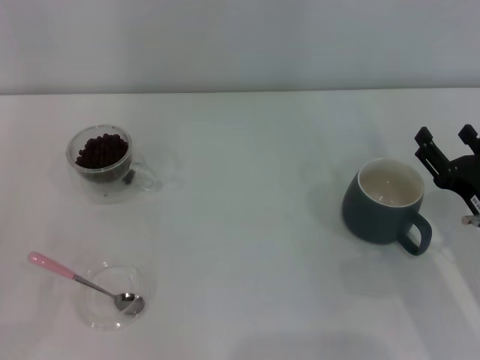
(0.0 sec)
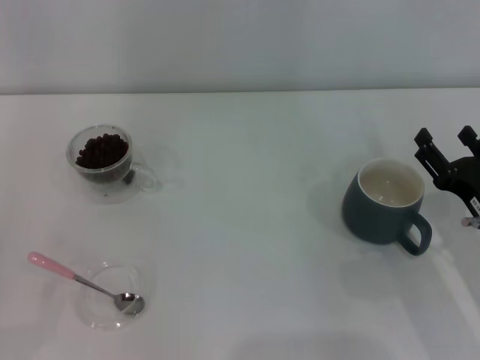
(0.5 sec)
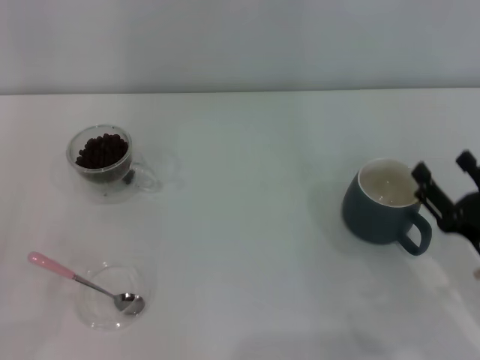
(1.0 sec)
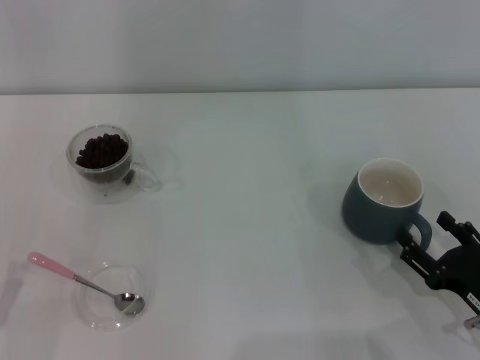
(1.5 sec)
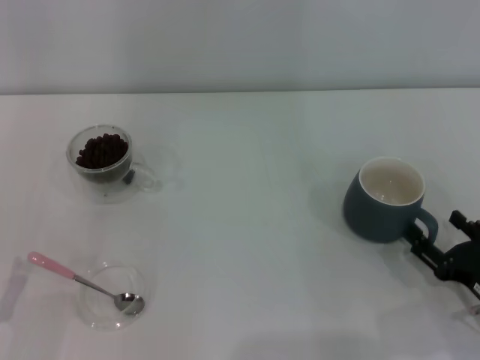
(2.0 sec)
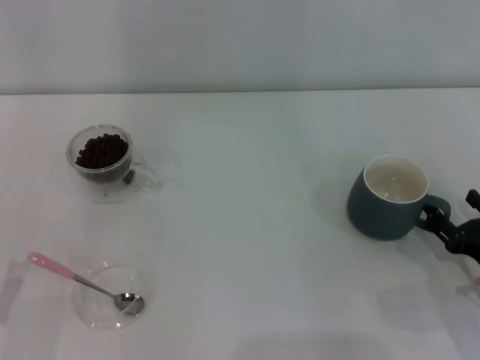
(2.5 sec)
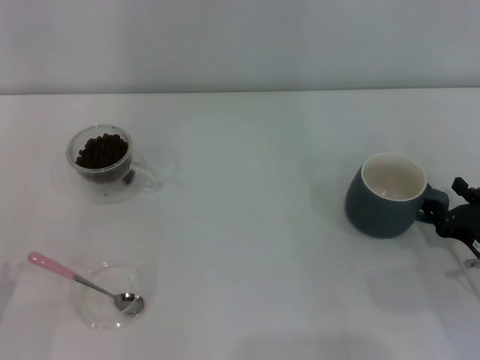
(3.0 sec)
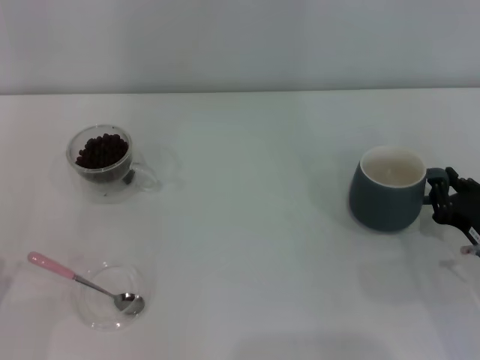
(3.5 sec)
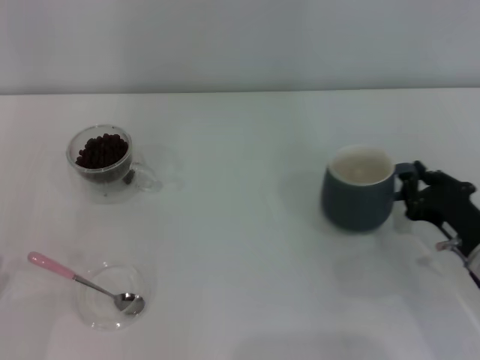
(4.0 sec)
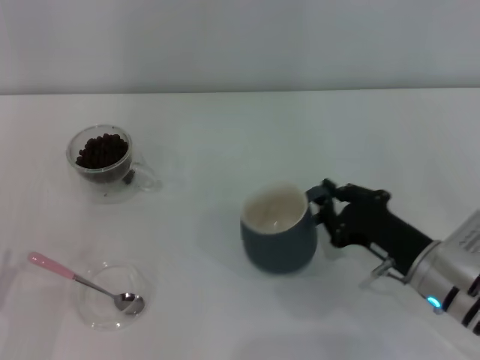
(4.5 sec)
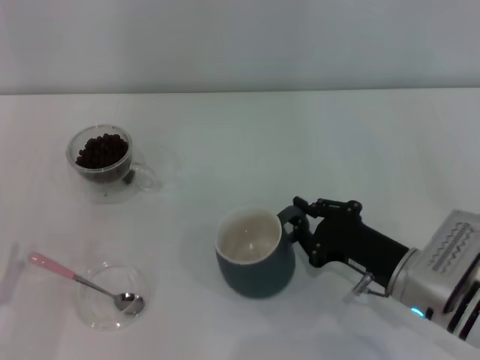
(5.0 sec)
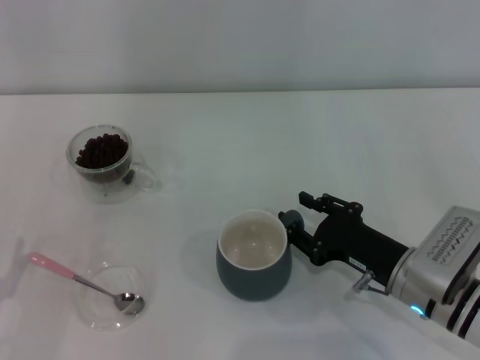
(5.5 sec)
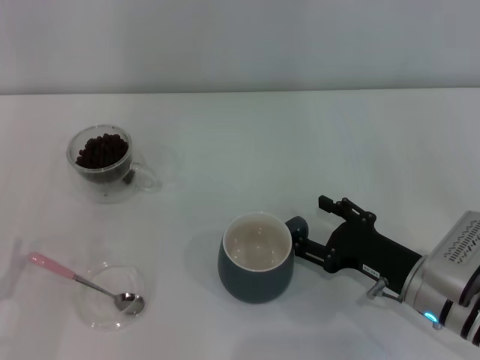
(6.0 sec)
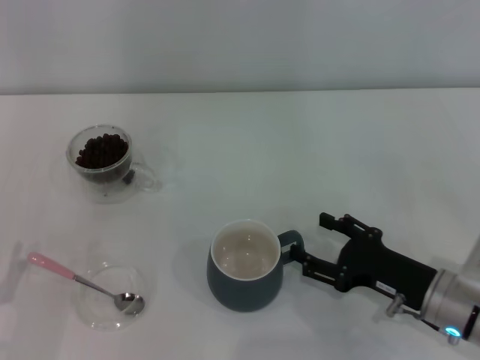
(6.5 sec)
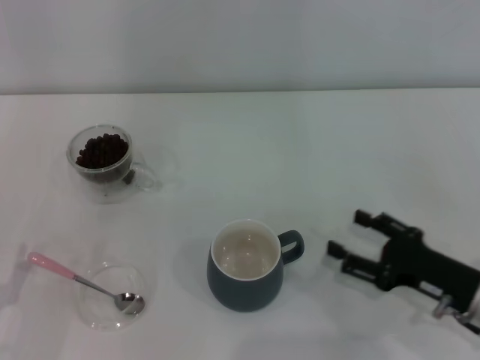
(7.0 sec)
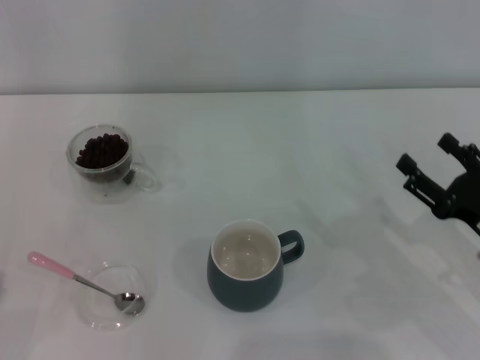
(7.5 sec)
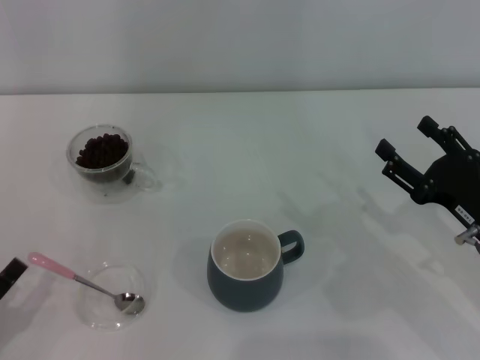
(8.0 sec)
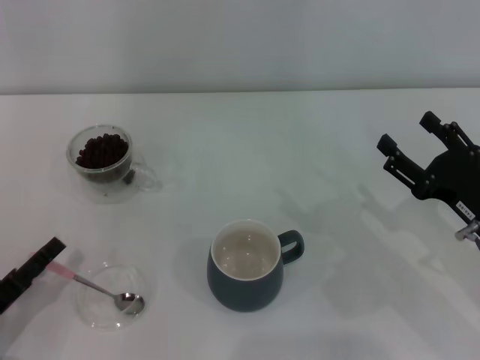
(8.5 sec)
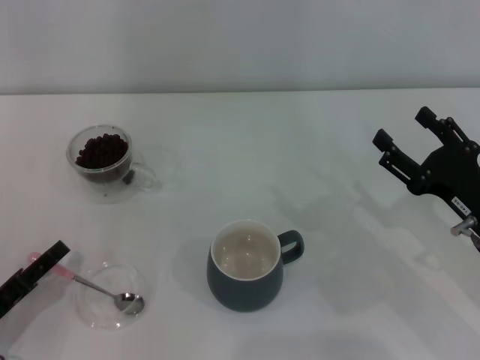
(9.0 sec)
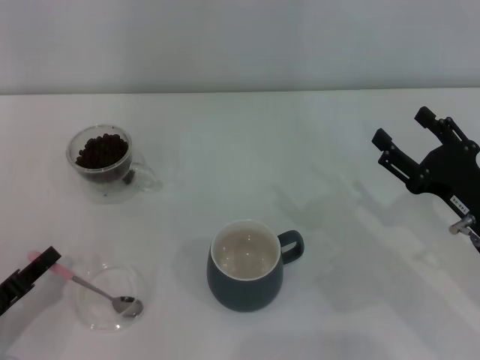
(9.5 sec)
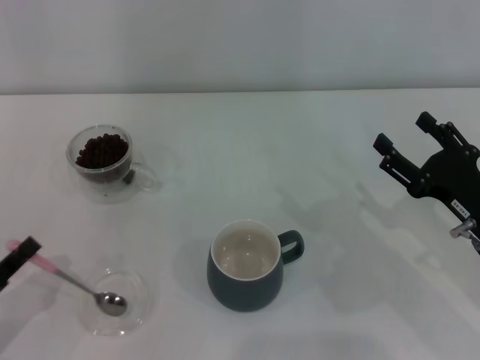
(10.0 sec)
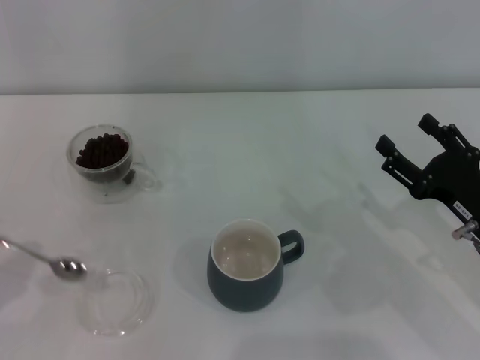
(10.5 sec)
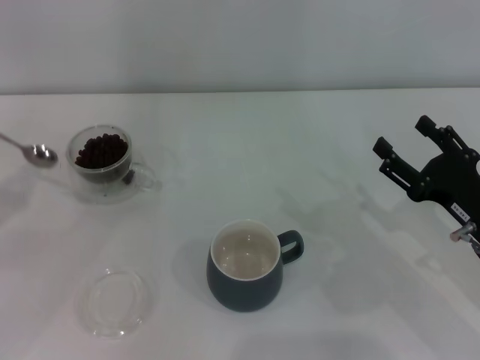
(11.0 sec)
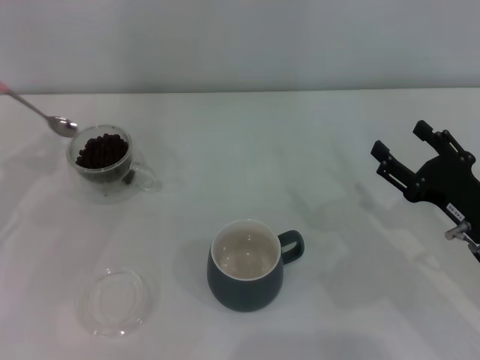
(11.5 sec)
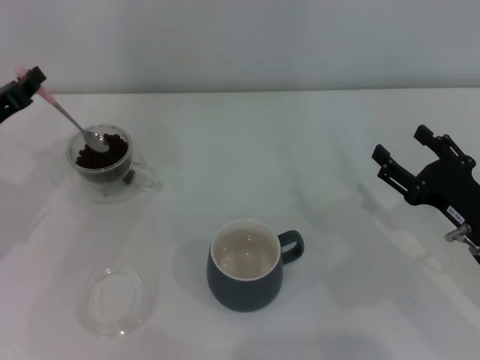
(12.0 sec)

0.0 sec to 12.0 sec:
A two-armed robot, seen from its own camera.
Task of the whole recording: Use a pink spoon to take out the coffee beans from the glass and pour them into the gray cup.
Step, 0.0 sec to 6.5 sec: Move the cup to the center of view with the left gripper.
Step, 7.0 sec to 10.0 sec: Pick up the spoon with the right gripper.
0.0 sec to 2.0 sec: The right gripper shifts roughly 5 cm backward.
2.0 sec to 4.0 sec: The right gripper heads forward, covering some 5 cm, and closes.
4.0 sec to 6.0 sec: The right gripper goes approximately 5 cm to the left, and opens its fingers.
6.0 sec to 8.0 sec: The right gripper moves to the right, some 5 cm.
8.0 sec to 10.0 sec: The left gripper closes up.
10.0 sec to 12.0 sec: The left gripper is displaced forward and upward by roughly 20 cm.

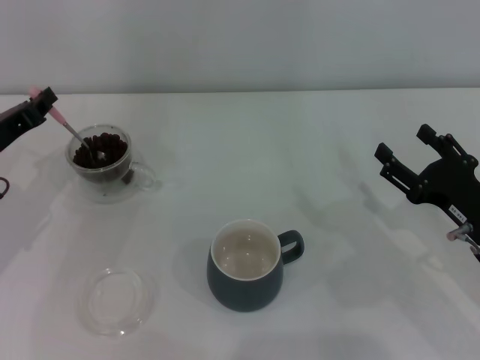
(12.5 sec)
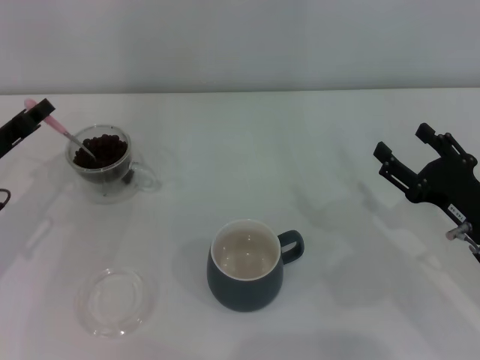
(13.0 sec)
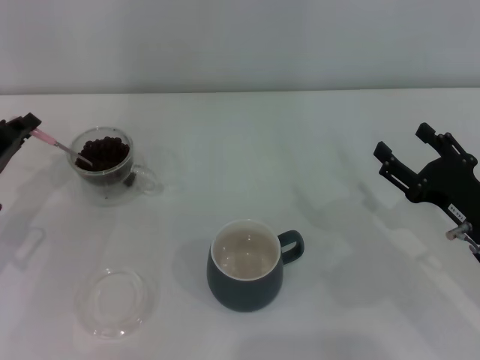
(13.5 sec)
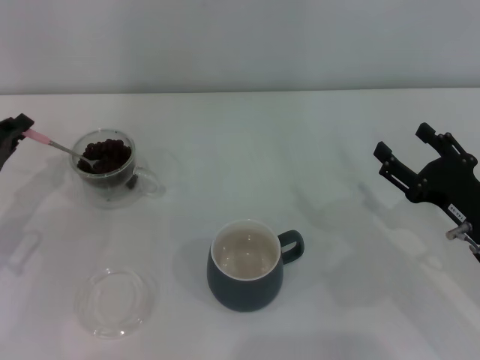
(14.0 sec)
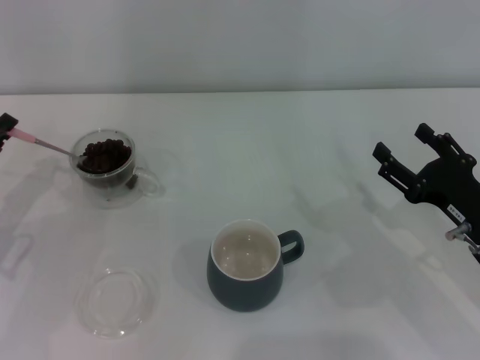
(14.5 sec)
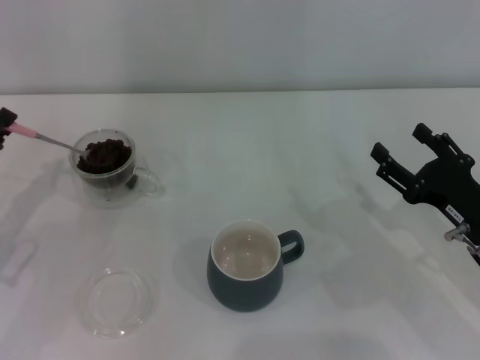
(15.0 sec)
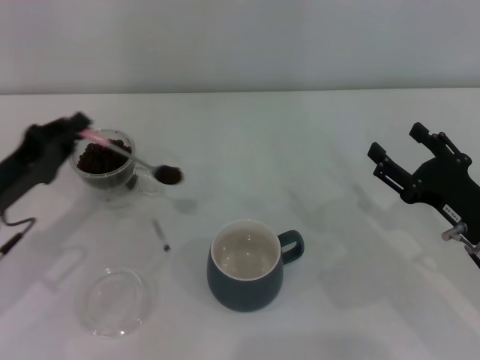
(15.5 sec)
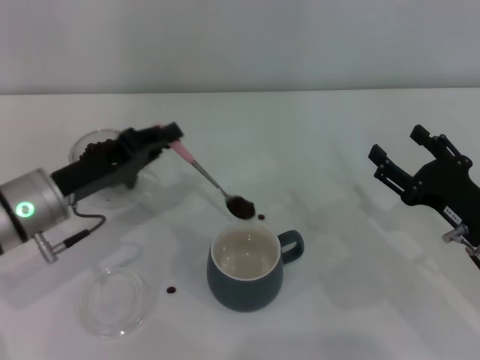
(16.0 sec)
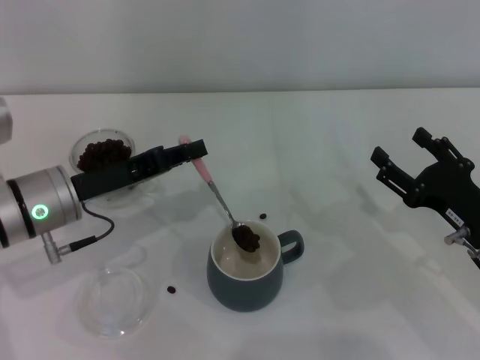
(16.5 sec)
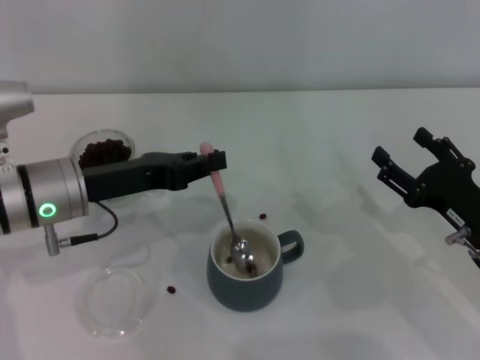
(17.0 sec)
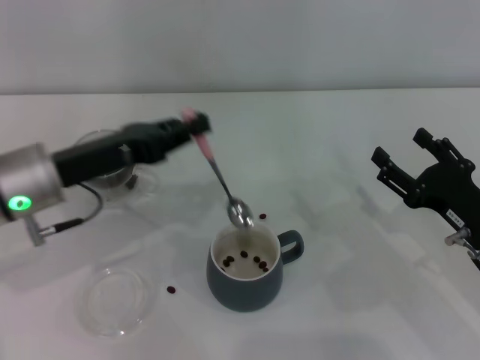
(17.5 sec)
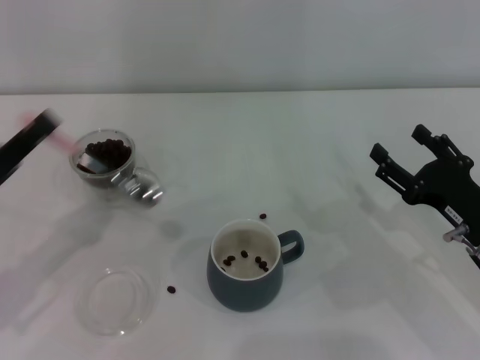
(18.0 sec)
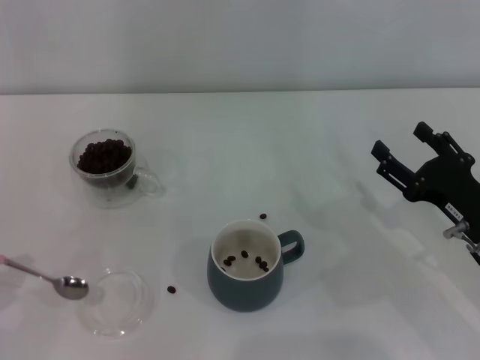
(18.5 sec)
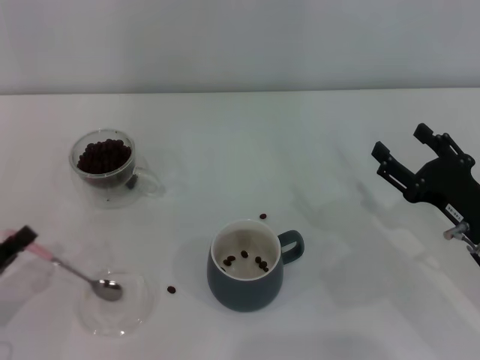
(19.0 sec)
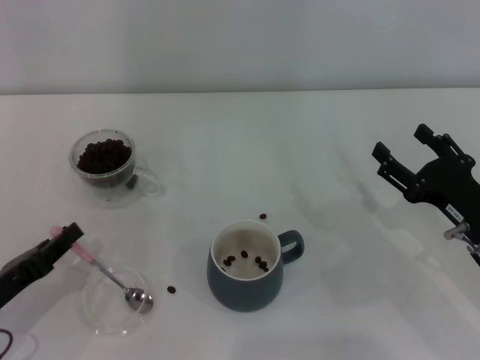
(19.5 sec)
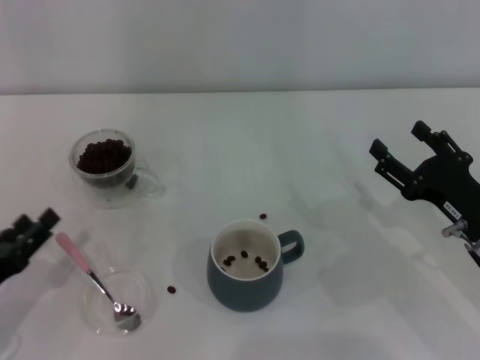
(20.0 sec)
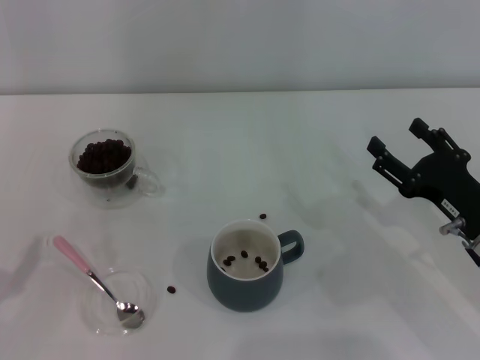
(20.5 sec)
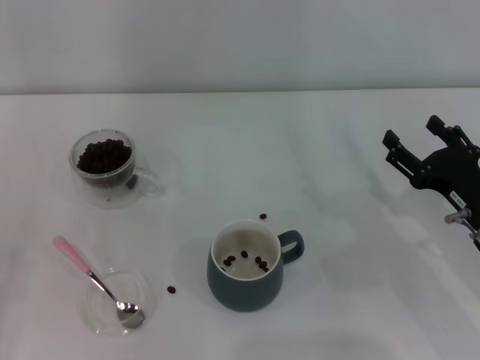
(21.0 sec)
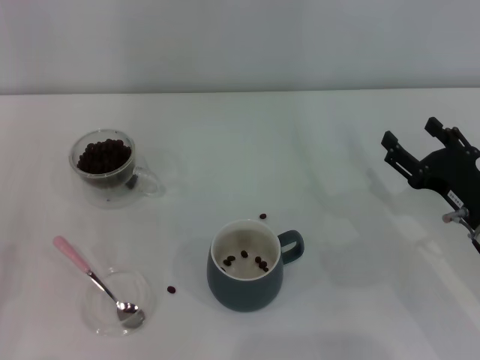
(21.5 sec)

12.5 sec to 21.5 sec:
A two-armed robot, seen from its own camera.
Task of the whole recording: Use a pink spoon to take out the coffee beans from the glass and pour them into the gray cup.
12.5 sec to 14.5 sec: The left gripper changes place by roughly 5 cm.
14.5 sec to 17.0 sec: The left gripper travels to the right by about 15 cm.
17.0 sec to 19.5 sec: The left gripper goes about 20 cm backward, to the left and downward.
19.5 sec to 21.5 sec: The left gripper shifts about 5 cm backward, and opens its fingers.

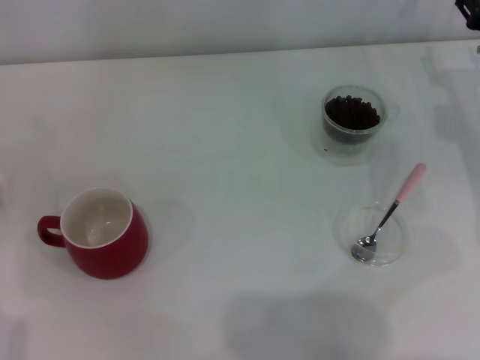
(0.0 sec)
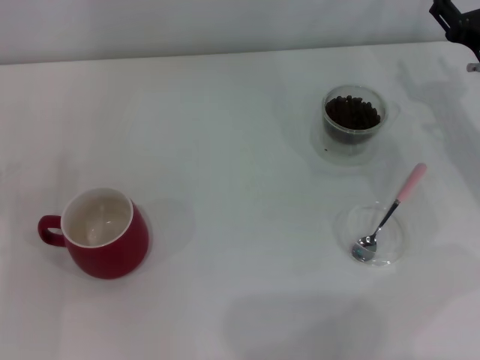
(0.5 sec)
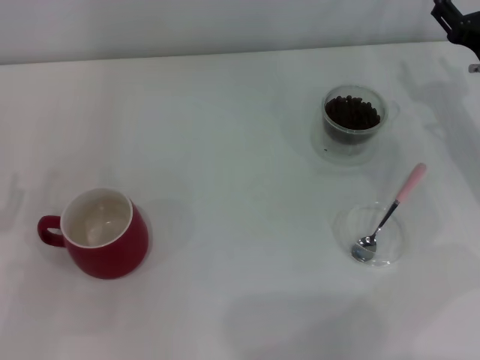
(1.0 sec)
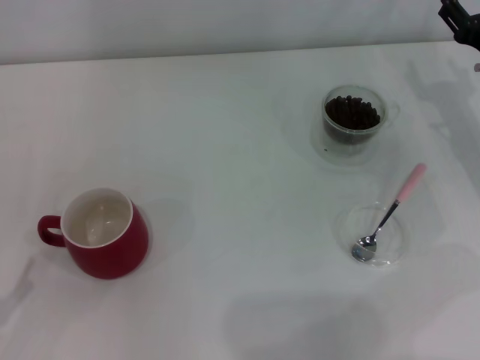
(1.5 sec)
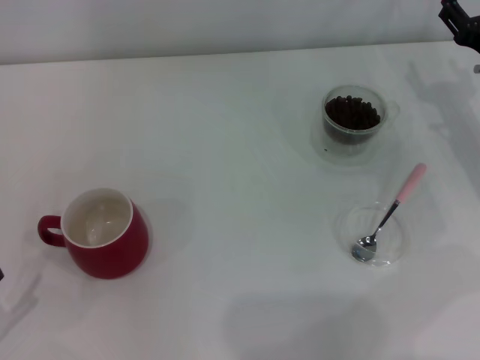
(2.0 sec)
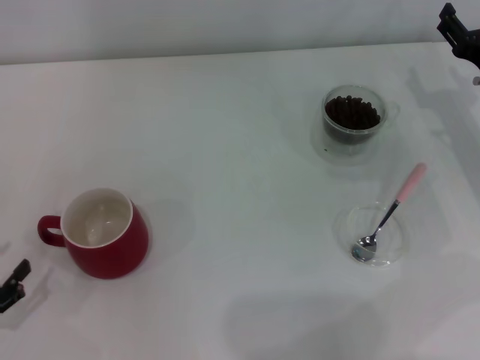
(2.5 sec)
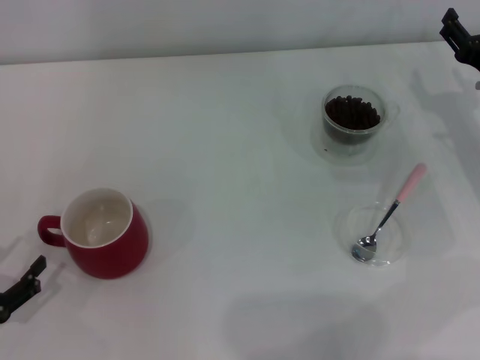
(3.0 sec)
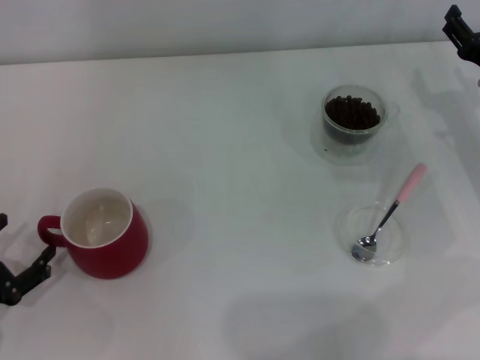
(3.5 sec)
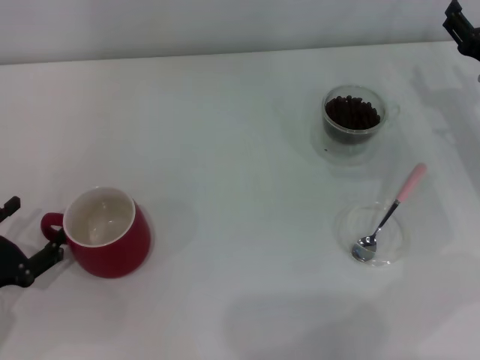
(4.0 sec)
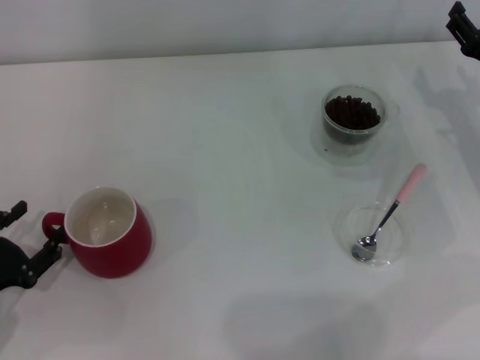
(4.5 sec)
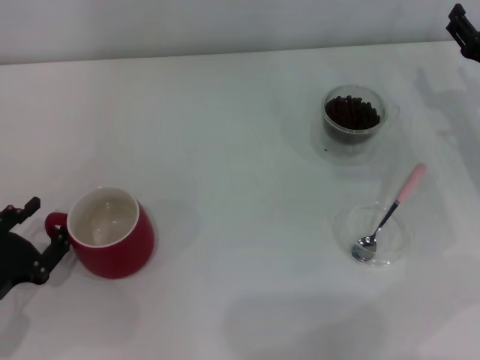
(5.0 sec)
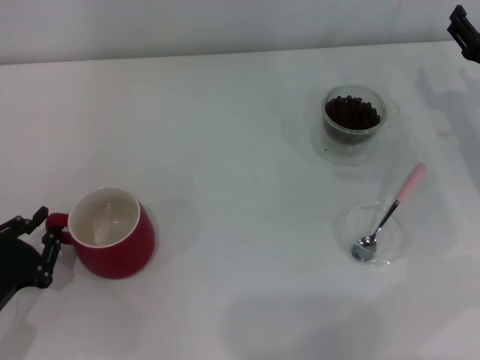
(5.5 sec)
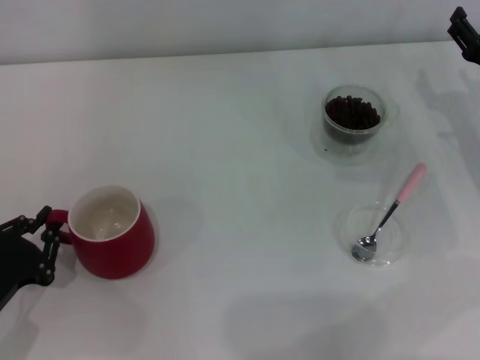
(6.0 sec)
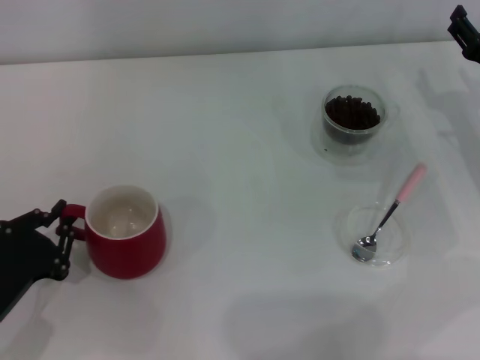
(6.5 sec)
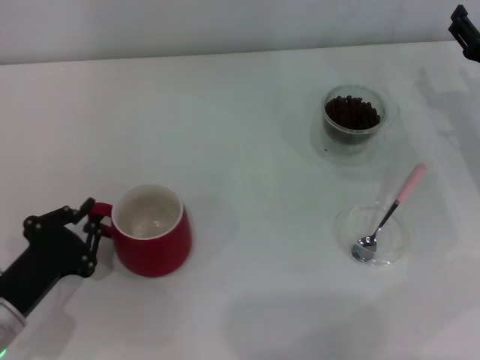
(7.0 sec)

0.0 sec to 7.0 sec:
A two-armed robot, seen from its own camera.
Task of the whole recording: Use a pink spoon to take out the coffee beans from the glass and pour them into the red cup.
2.0 sec to 3.5 sec: The left gripper moves forward, roughly 5 cm.
3.5 sec to 5.0 sec: The left gripper closes up.
5.0 sec to 7.0 sec: The left gripper closes up.
